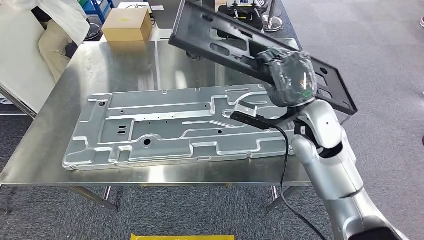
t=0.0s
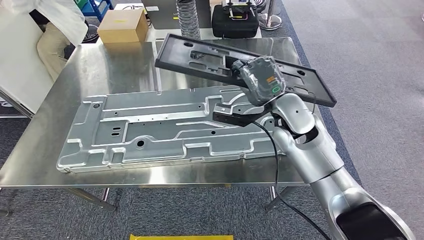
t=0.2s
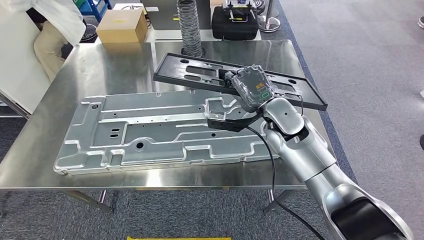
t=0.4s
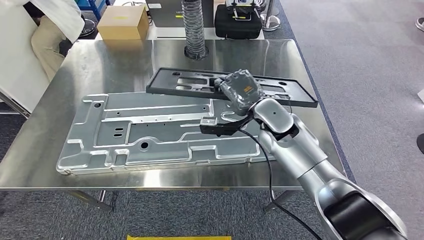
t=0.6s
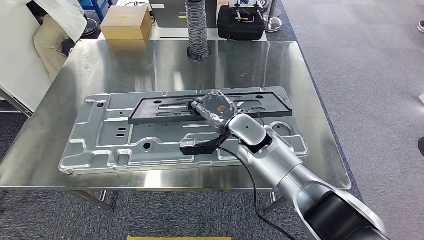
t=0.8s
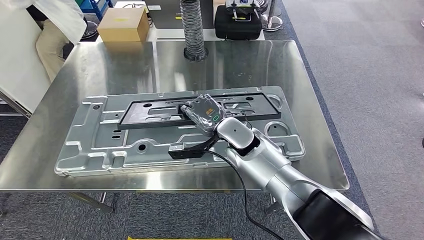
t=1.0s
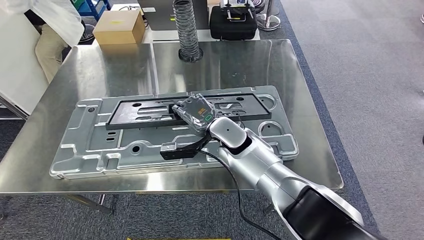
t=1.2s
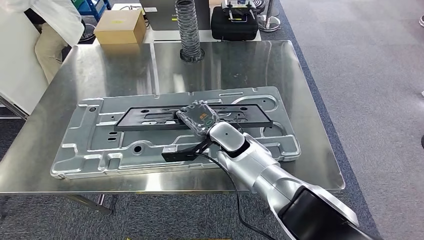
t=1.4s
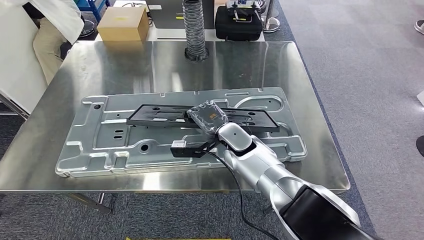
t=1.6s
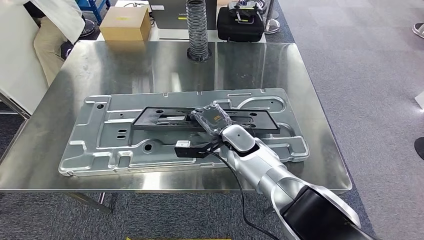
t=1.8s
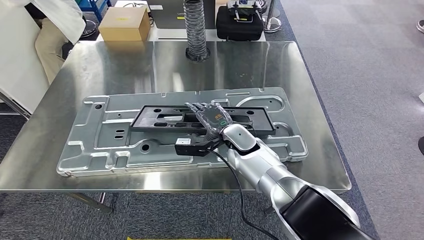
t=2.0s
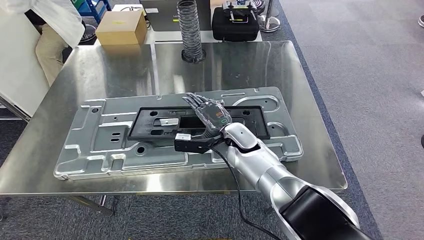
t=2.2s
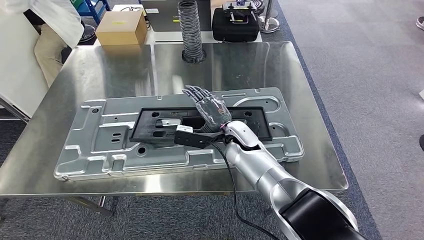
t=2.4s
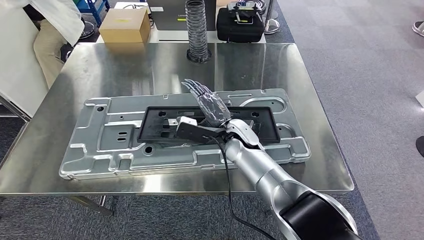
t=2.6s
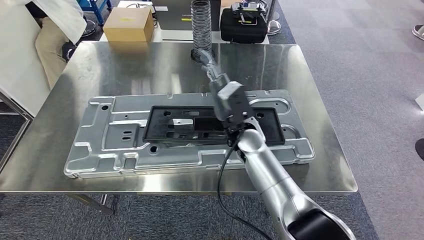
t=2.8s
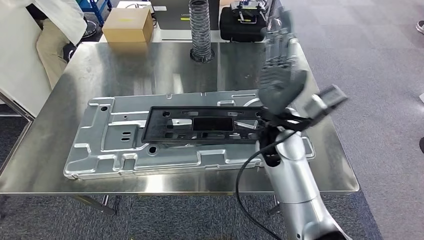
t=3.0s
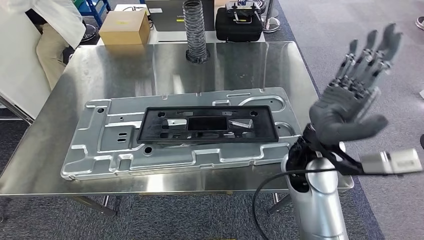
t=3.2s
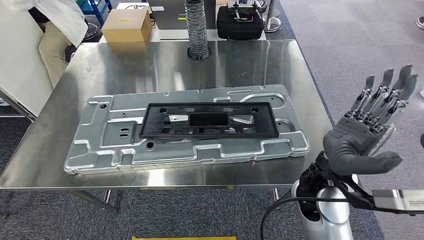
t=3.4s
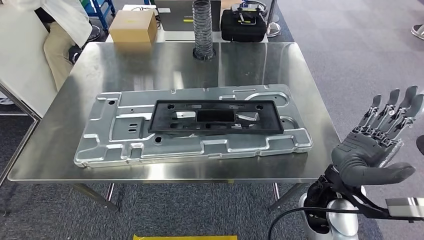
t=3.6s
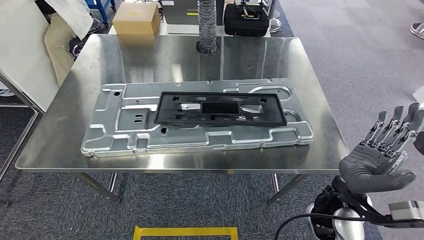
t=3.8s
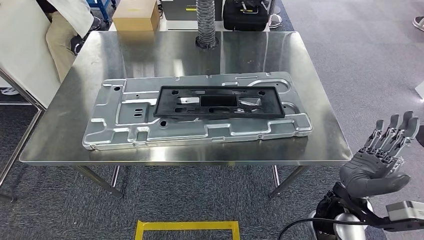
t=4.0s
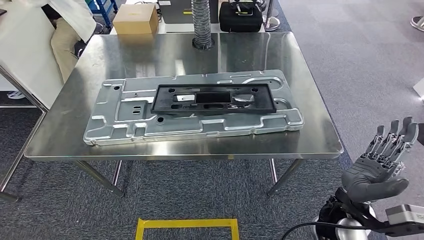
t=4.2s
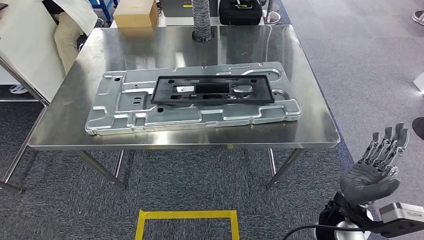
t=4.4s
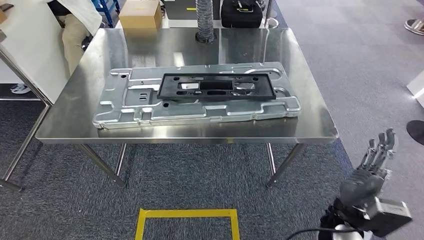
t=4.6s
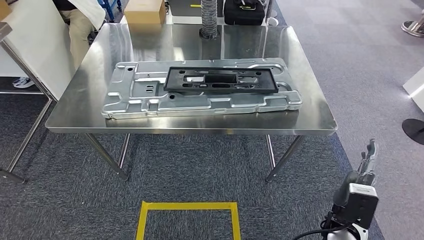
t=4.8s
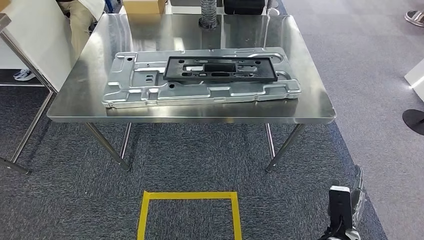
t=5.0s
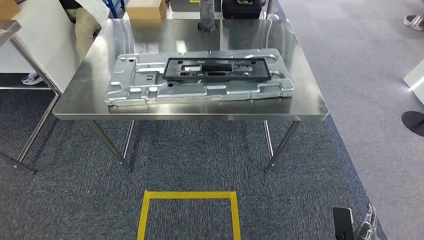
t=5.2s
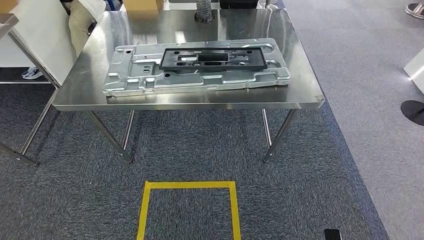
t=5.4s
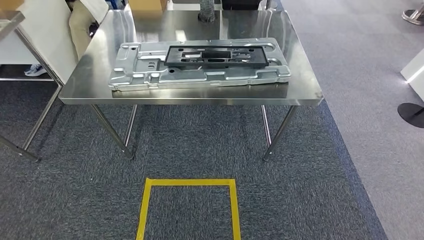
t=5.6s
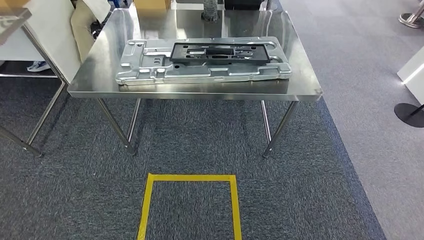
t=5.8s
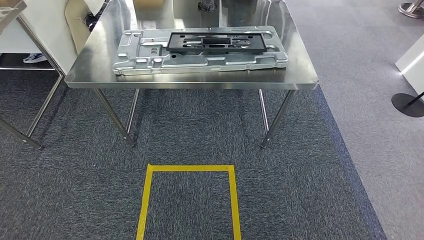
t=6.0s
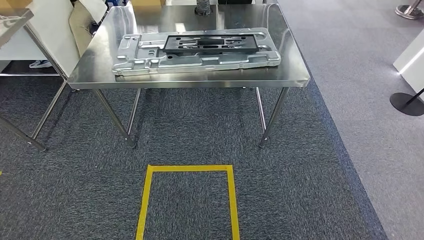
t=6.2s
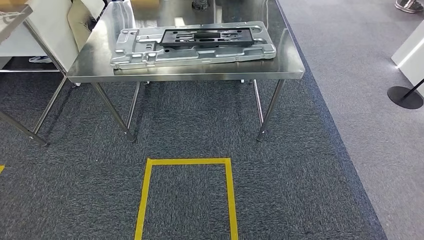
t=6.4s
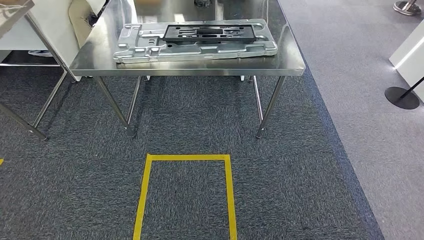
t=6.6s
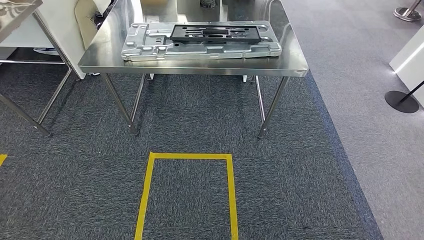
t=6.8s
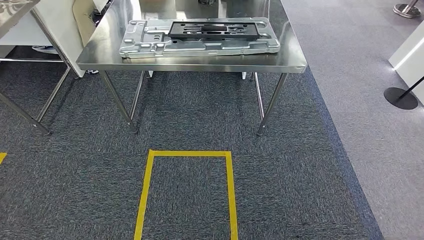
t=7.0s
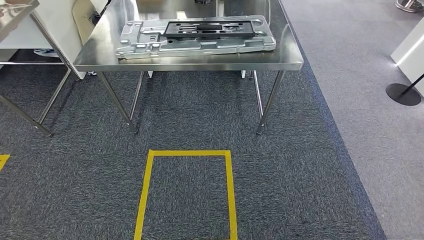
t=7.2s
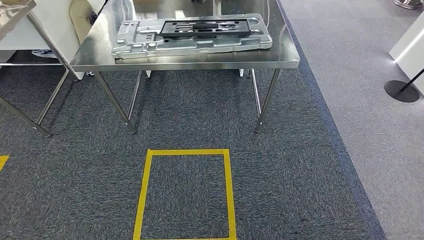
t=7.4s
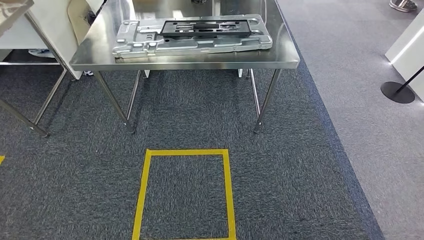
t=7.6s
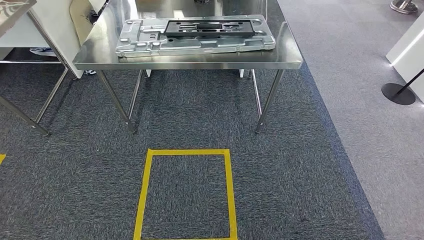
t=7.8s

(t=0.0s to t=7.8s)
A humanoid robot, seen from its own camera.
Step, t=0.0s - t=3.8s: Insert the small parts into the corresponding holes on the workbench.
Step, t=4.0s - t=7.8s: Move to the initial position at the workbench.
